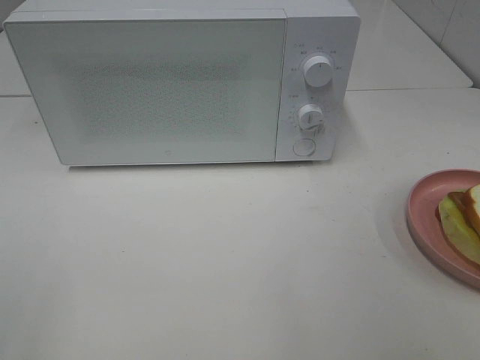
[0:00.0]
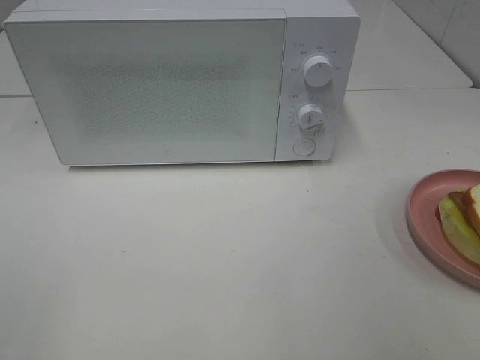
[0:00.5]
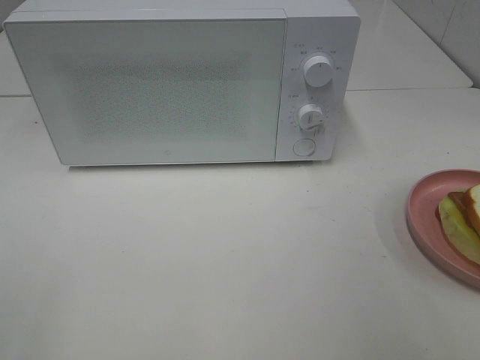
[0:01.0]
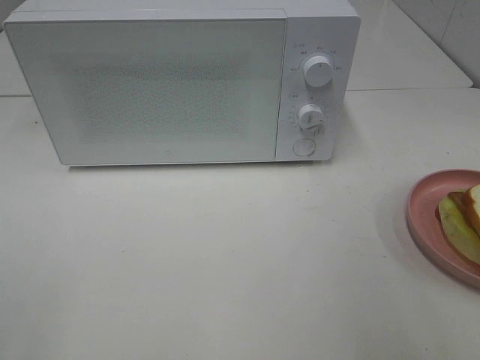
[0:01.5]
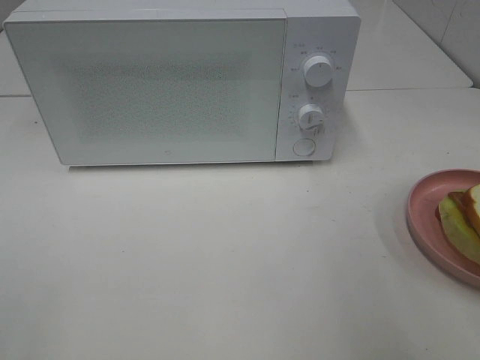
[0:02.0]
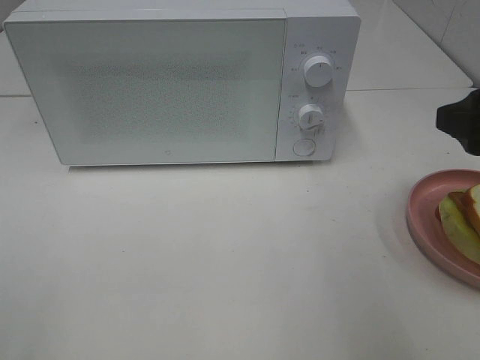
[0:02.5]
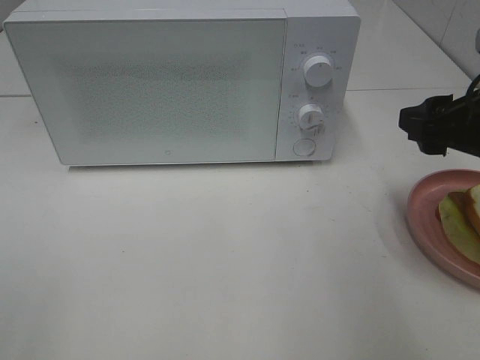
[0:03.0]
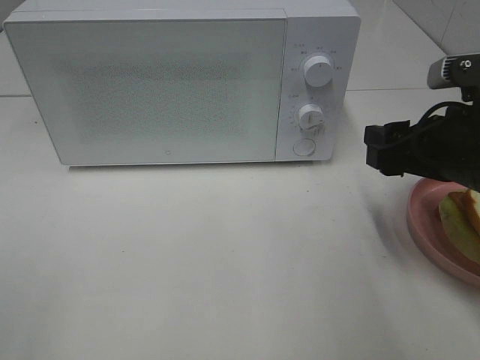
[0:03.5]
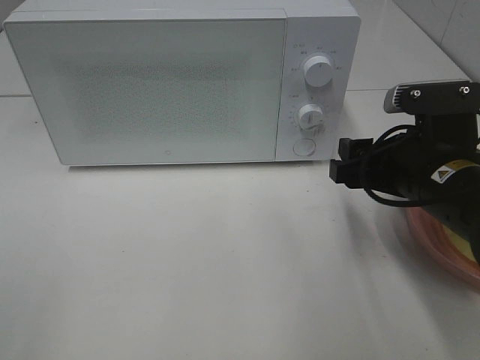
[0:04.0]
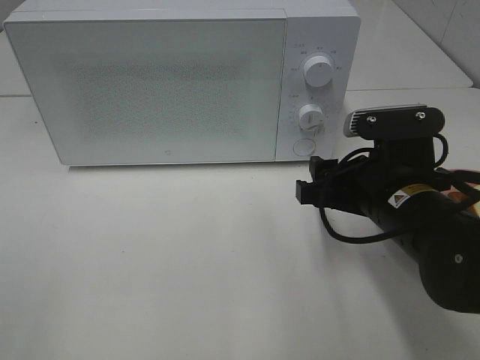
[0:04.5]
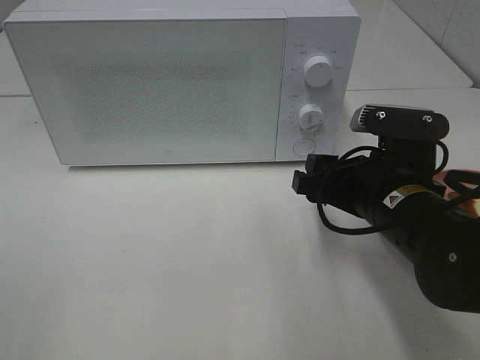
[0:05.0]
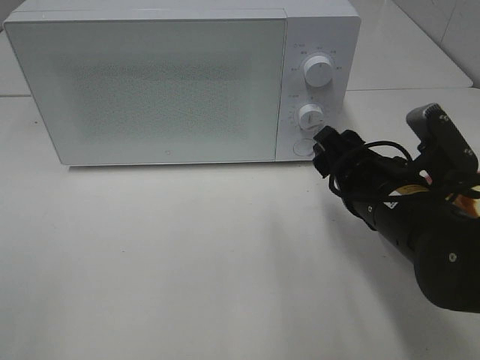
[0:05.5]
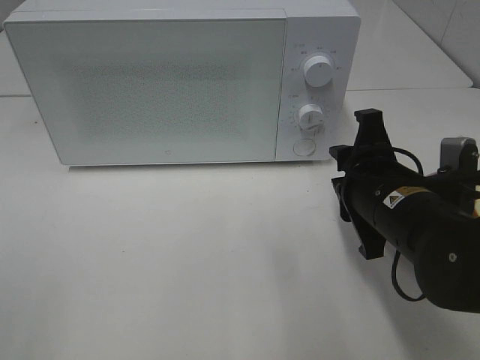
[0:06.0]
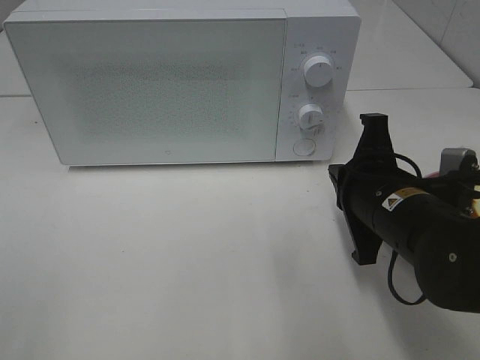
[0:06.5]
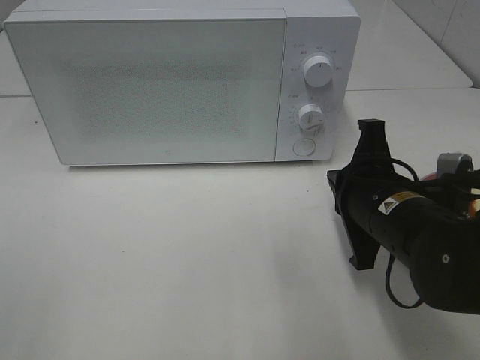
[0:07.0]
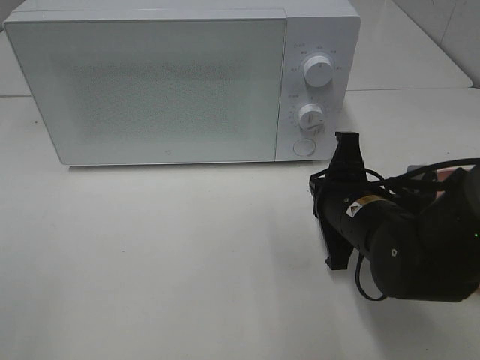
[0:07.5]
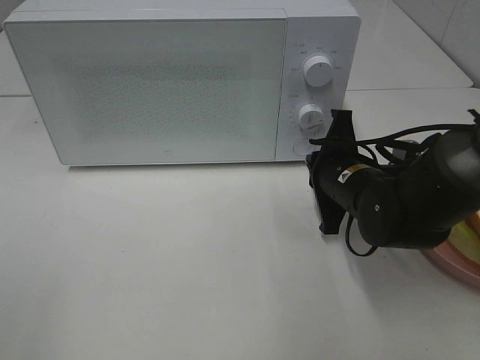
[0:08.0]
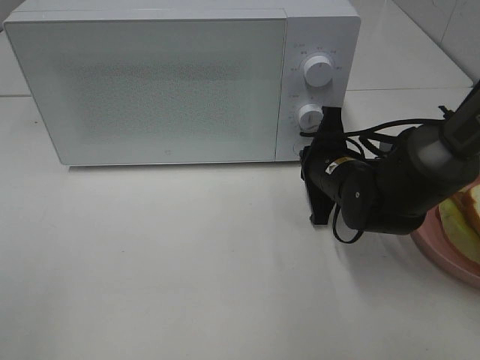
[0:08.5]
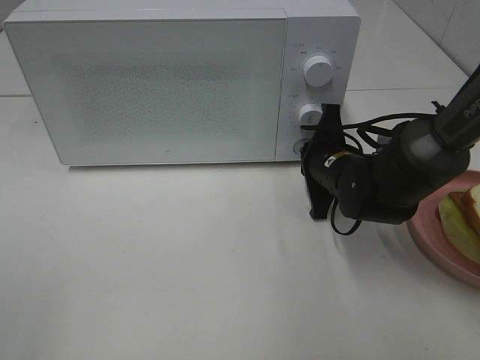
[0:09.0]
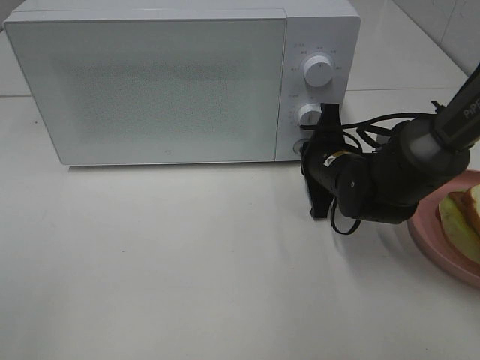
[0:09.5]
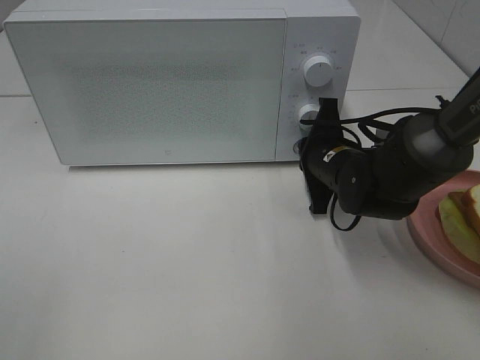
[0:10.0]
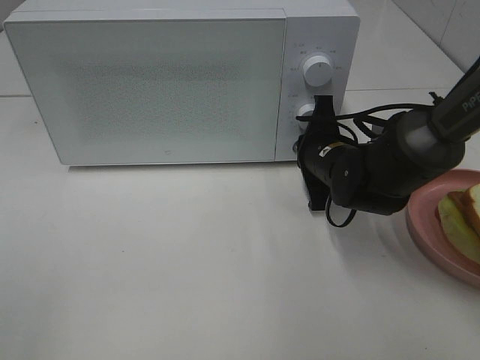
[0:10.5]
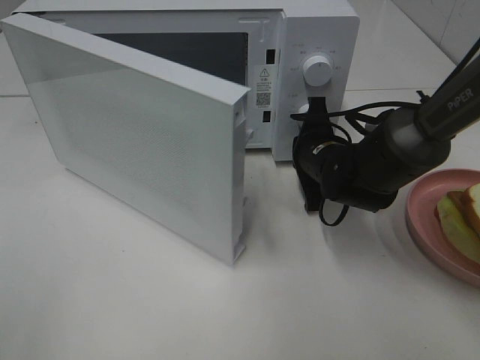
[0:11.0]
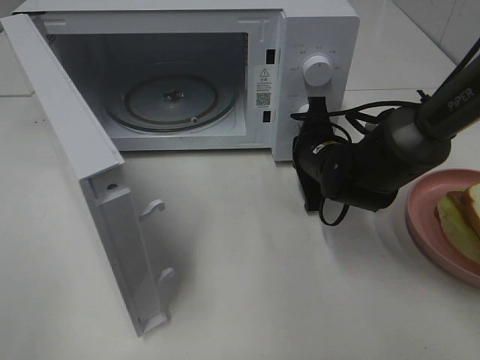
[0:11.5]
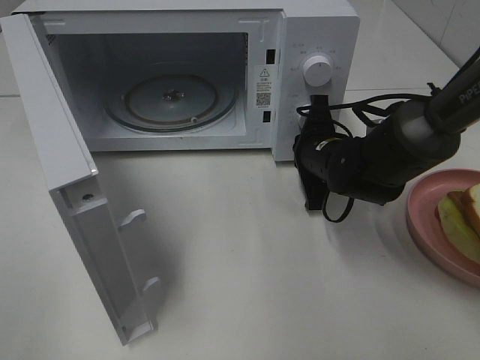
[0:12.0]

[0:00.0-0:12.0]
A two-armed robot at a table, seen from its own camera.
Task of the whole recording: Heat Sandwich.
0:02.0 to 0:04.0: The right gripper moves downward, forward and to the left, about 15 cm.
0:06.0 to 0:08.0: The right gripper shifts about 10 cm forward, and closes up.
0:08.0 to 0:10.0: There are only small adjustments of the grippers.

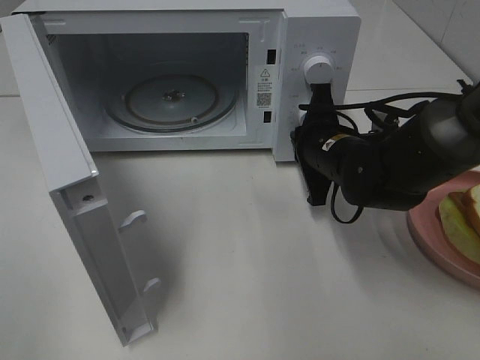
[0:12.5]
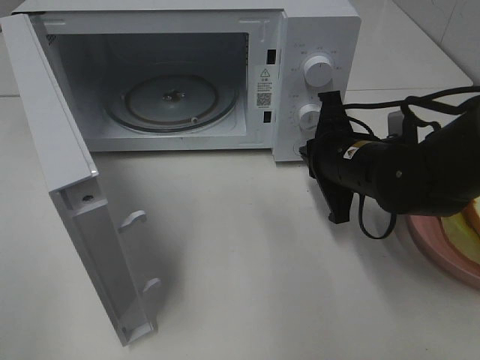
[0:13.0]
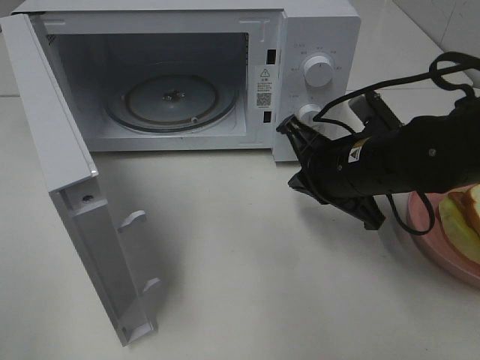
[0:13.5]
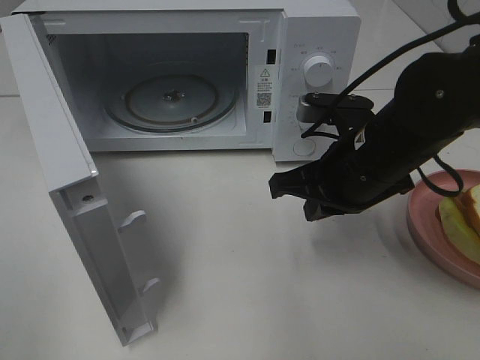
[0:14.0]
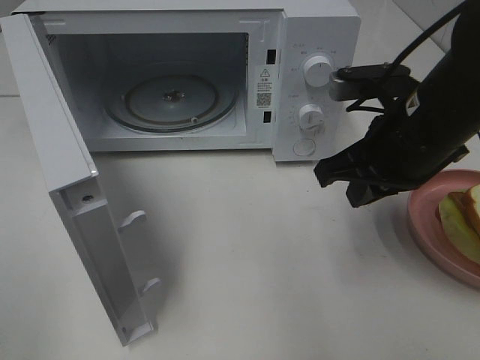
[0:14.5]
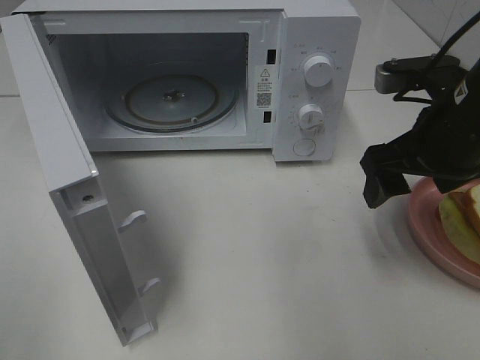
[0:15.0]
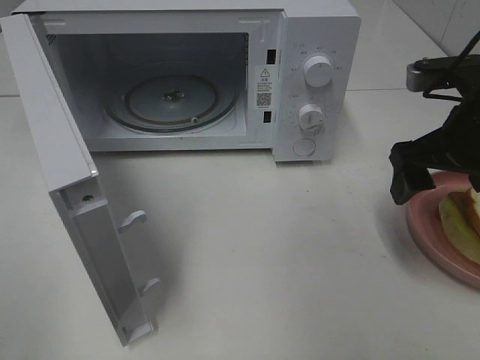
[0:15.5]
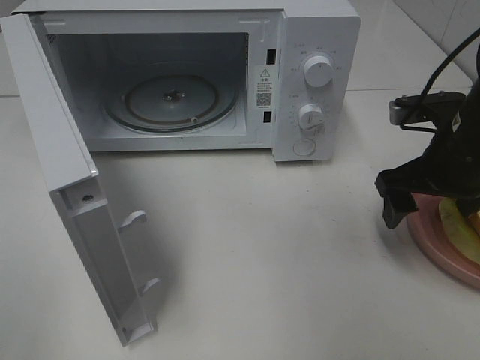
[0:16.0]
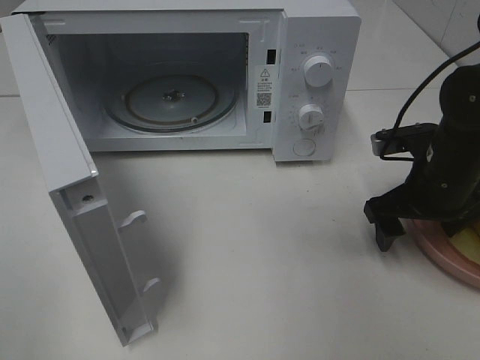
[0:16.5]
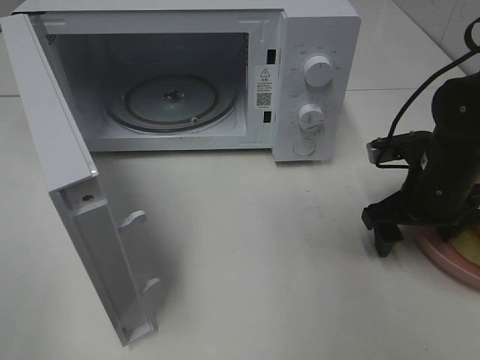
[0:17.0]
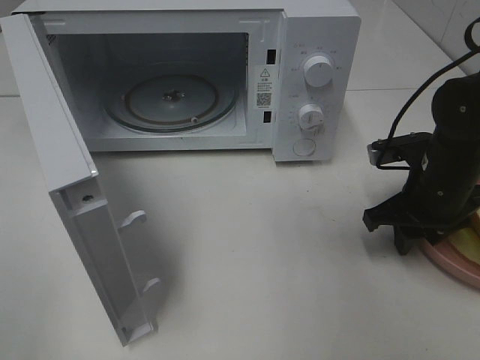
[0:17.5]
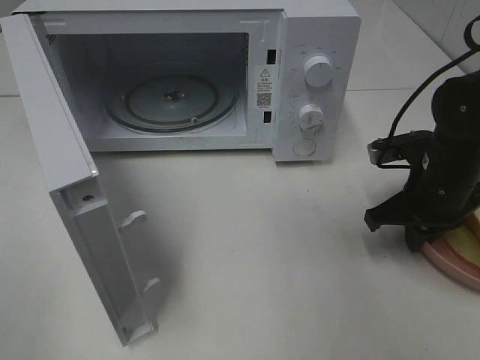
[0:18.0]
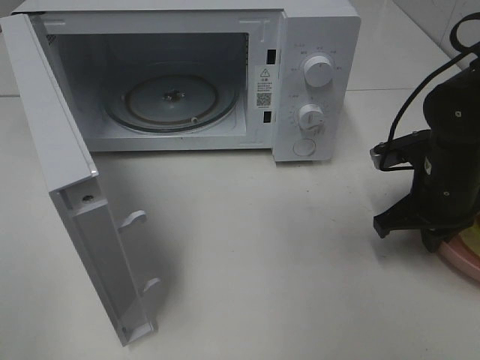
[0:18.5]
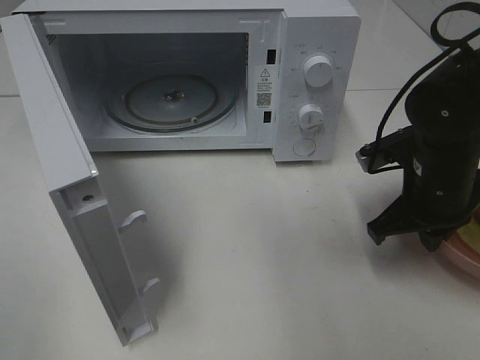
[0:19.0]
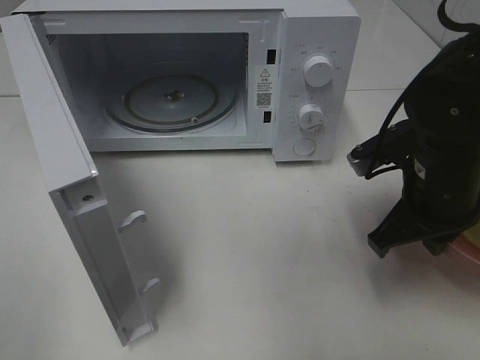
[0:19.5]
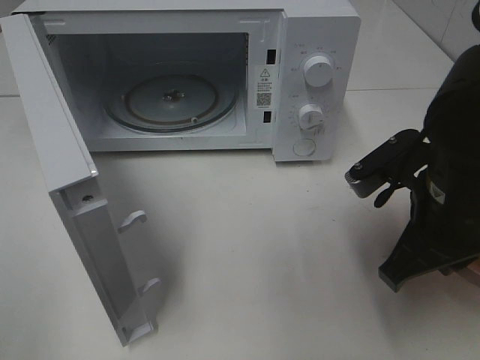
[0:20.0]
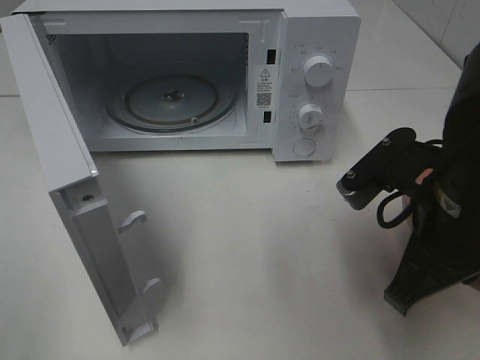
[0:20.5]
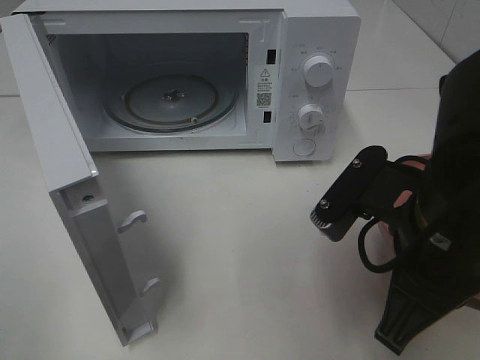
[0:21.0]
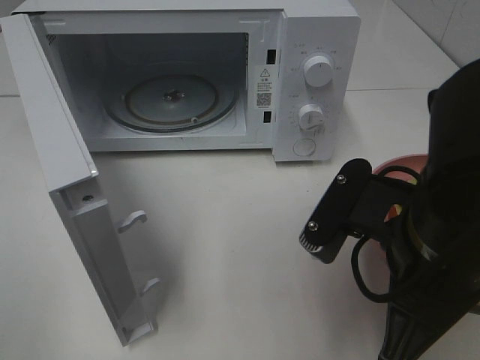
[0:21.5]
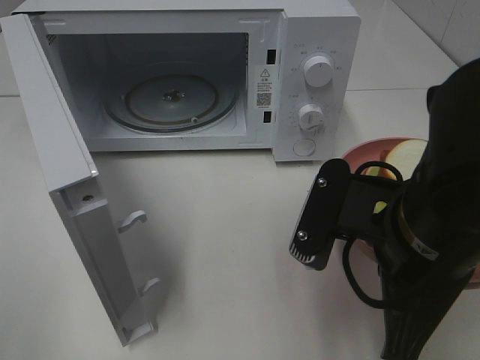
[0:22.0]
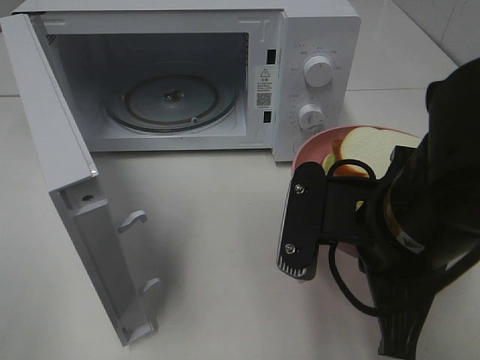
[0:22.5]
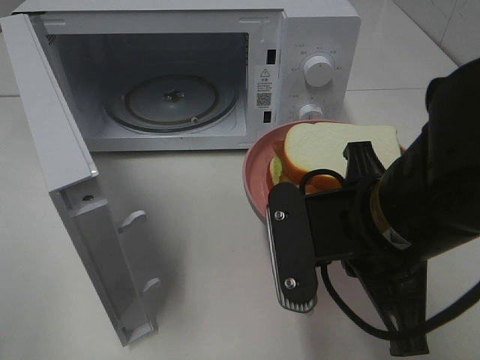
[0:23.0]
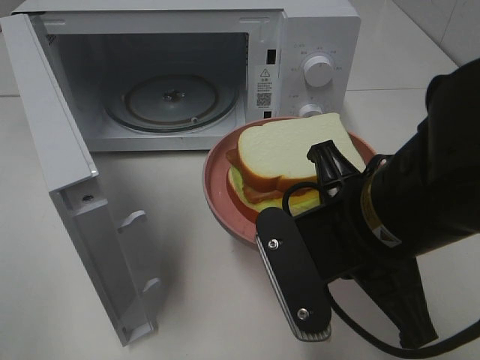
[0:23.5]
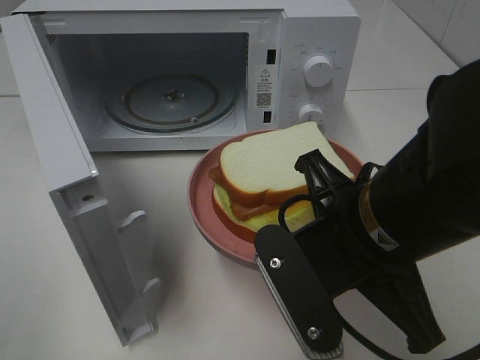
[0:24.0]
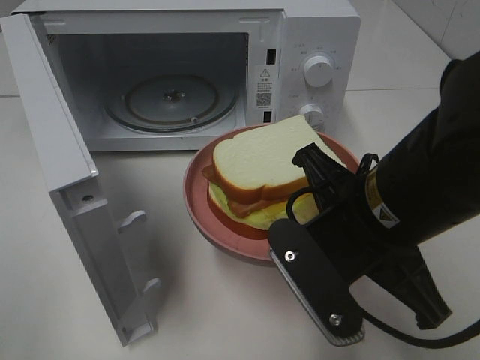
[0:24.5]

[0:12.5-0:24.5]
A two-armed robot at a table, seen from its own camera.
Task of the whole recording: Heat Sandwich.
Step, 0:13.0 to 0:18.0: Right hand: grab the plate with the sandwich.
0:12.5 to 0:14.5: The right gripper travels upward and backward by roughly 15 cm.
0:14.5 to 0:16.5: The right gripper travels downward and to the right by about 10 cm, and opens up.
0:16.5 to 0:18.5: The right gripper closes its fingers.
0:18.5 to 0:20.5: The right gripper shifts some 15 cm backward, upward and to the left.
0:20.5 to 0:22.5: The right gripper shifts by some 5 cm.

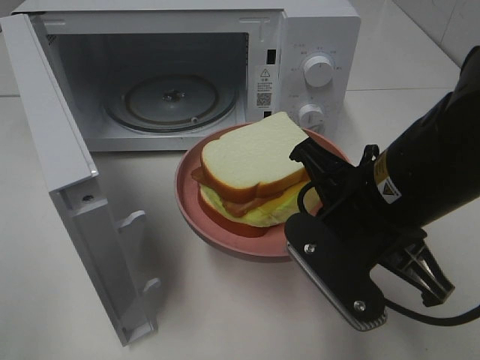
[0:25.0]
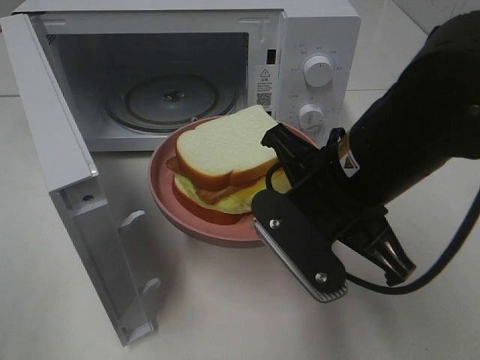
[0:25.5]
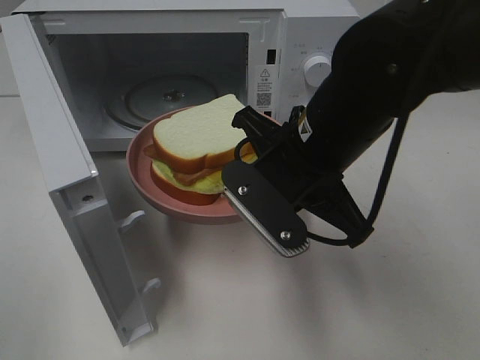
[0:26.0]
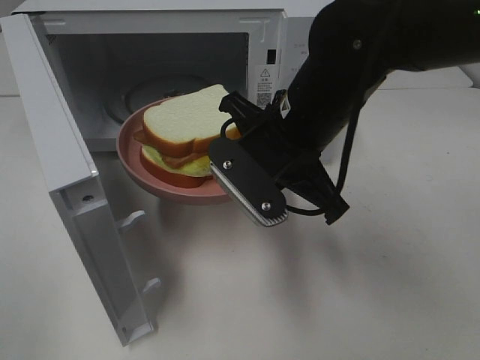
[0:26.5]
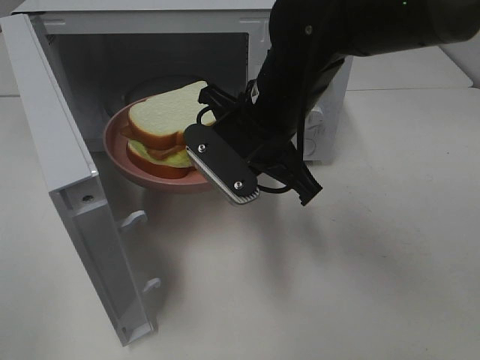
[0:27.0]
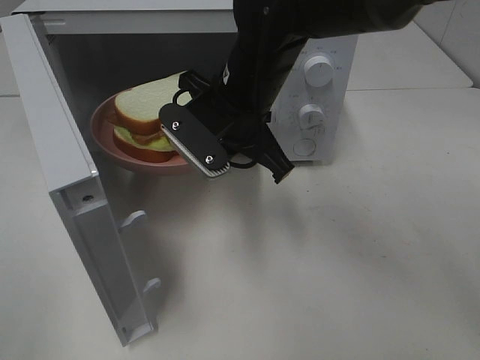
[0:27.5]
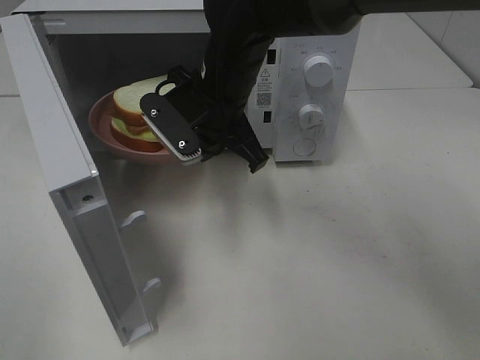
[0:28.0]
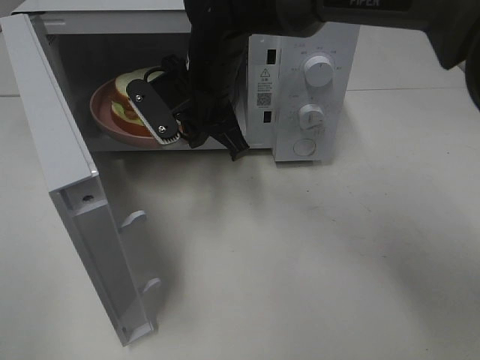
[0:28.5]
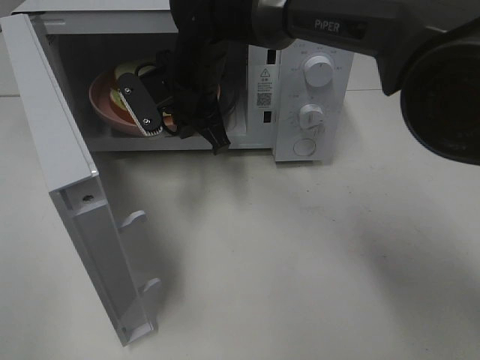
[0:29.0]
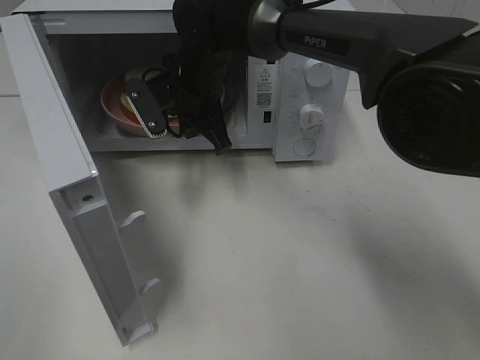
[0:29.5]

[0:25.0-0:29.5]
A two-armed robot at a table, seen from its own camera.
Task of the whole recording: Heat Sandwich.
0:25.0 to 0:27.0: The right gripper shifts approximately 15 cm forward and to the left.
0:27.0 to 0:29.5: The right gripper shifts approximately 15 cm forward and to the left.
